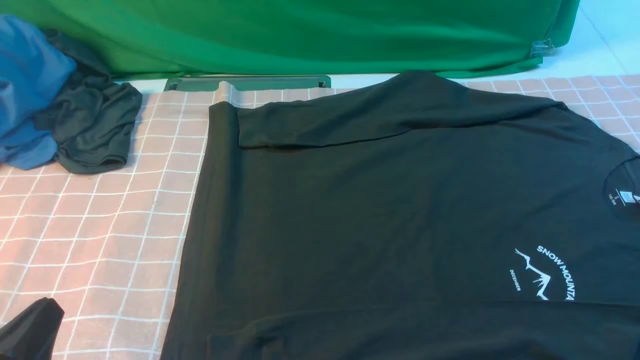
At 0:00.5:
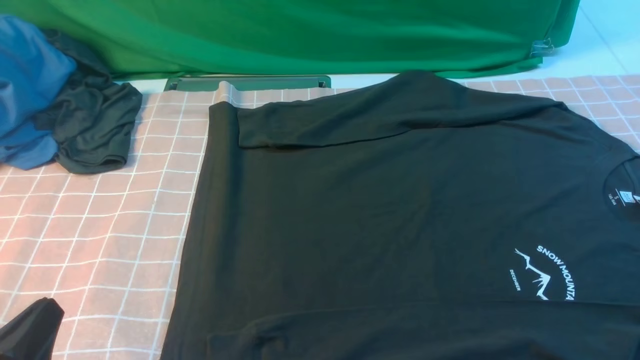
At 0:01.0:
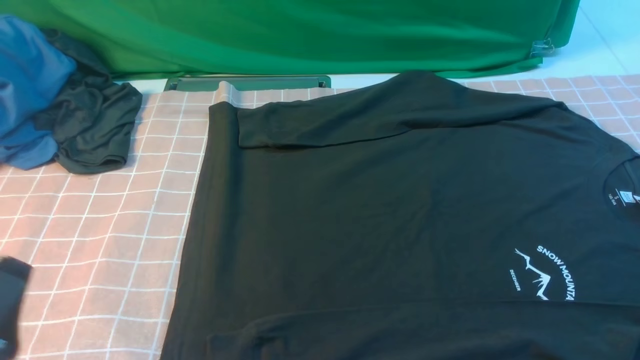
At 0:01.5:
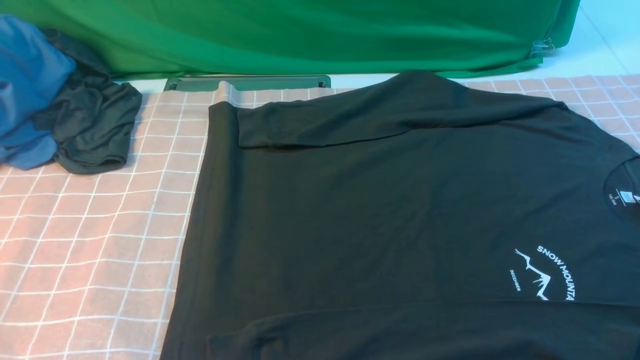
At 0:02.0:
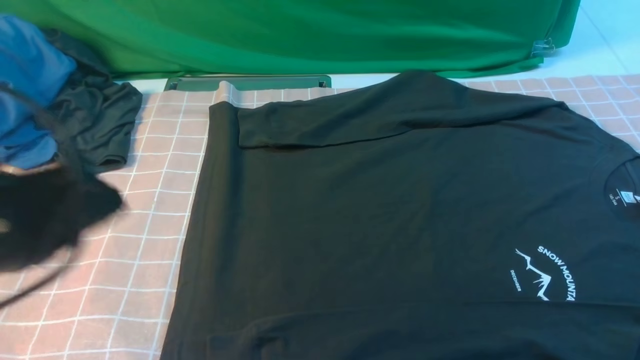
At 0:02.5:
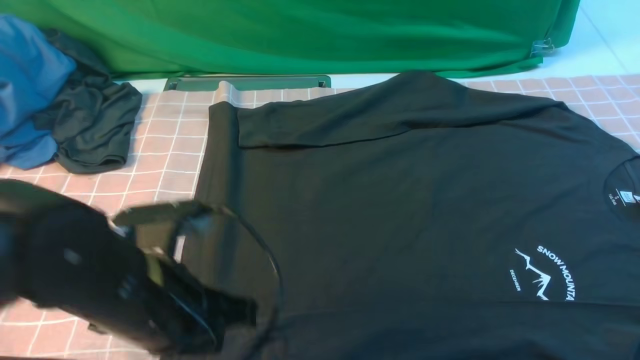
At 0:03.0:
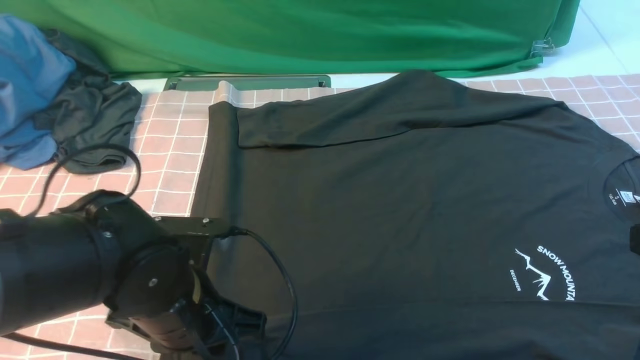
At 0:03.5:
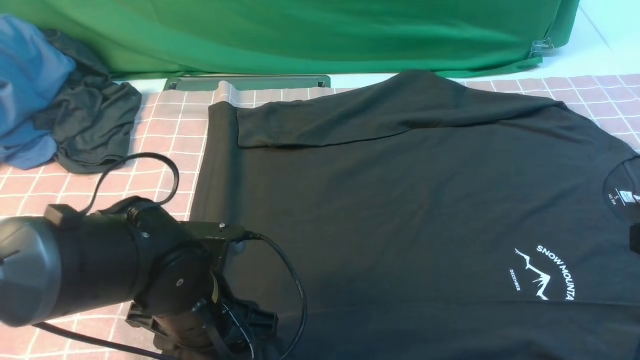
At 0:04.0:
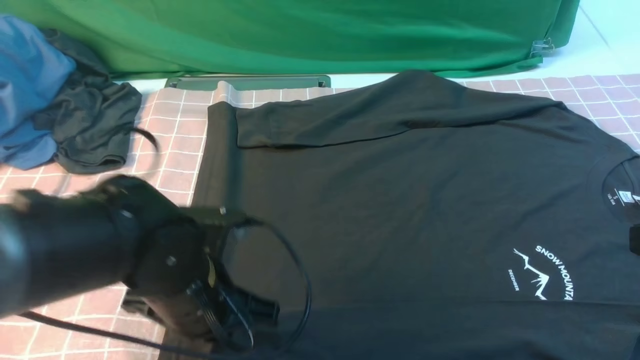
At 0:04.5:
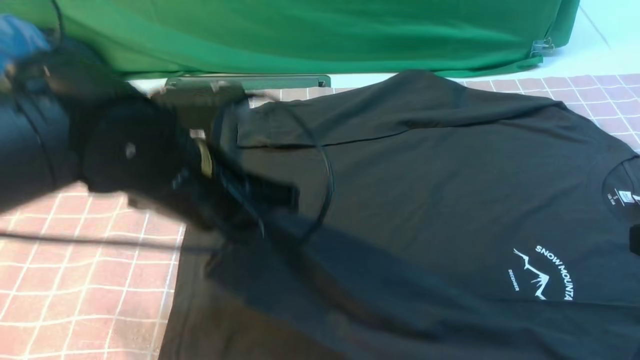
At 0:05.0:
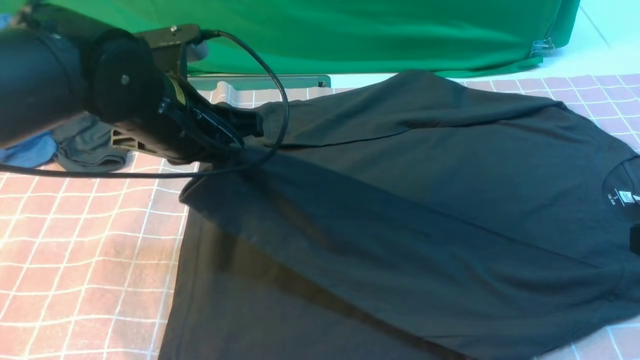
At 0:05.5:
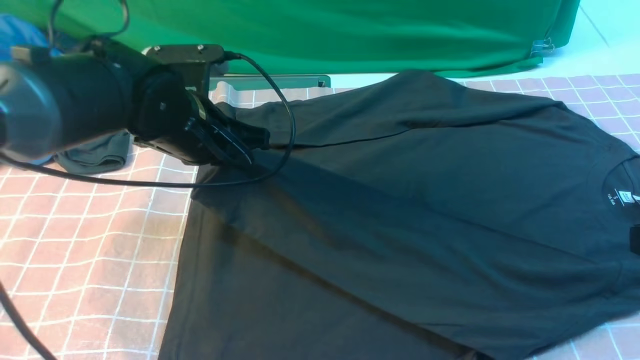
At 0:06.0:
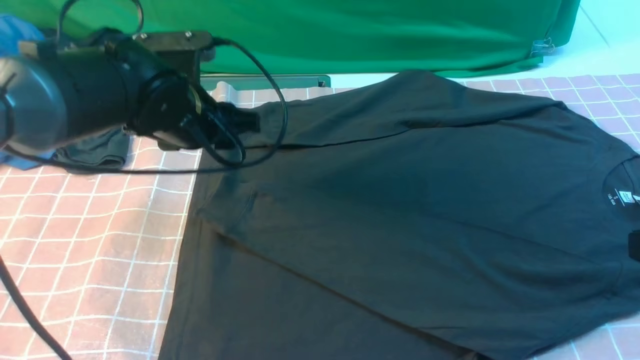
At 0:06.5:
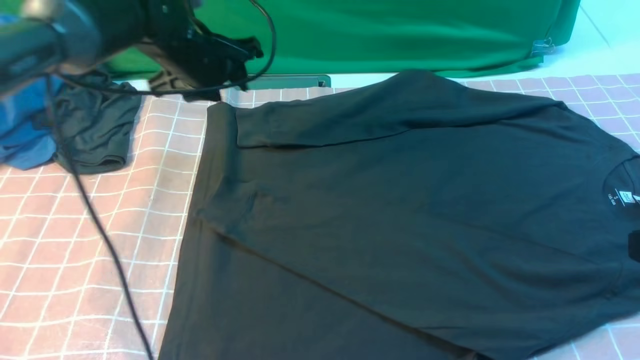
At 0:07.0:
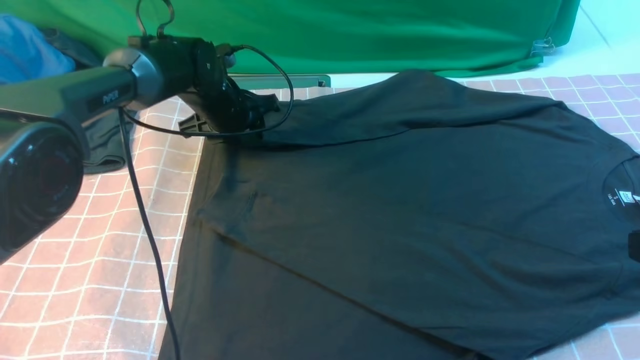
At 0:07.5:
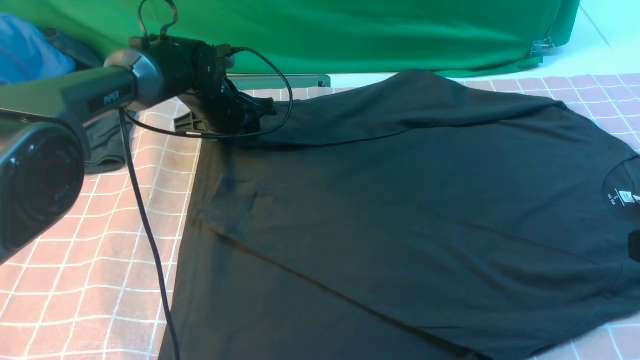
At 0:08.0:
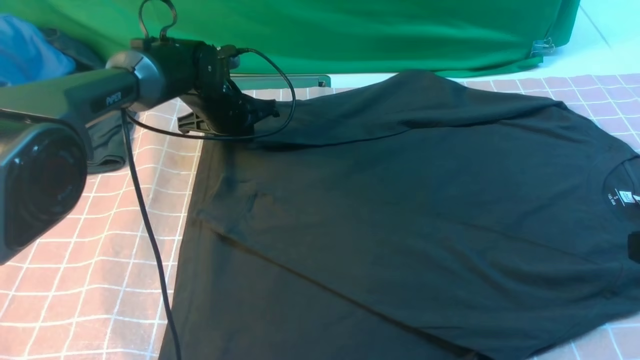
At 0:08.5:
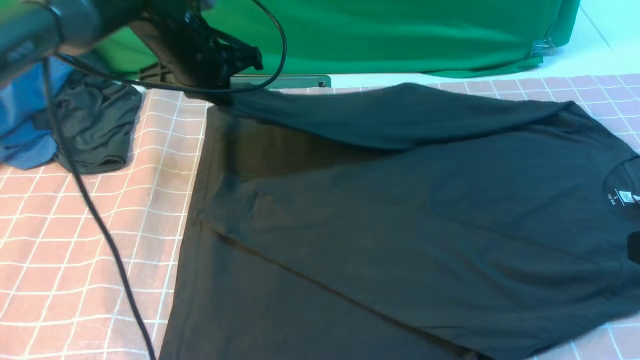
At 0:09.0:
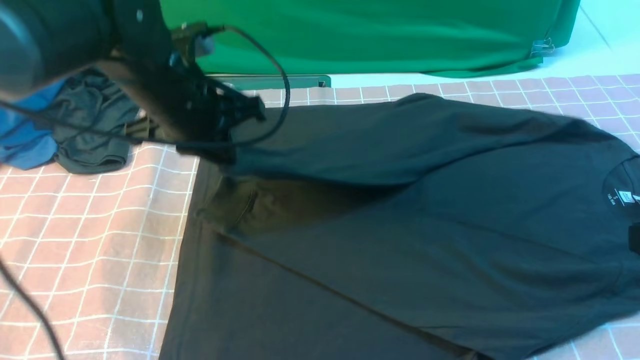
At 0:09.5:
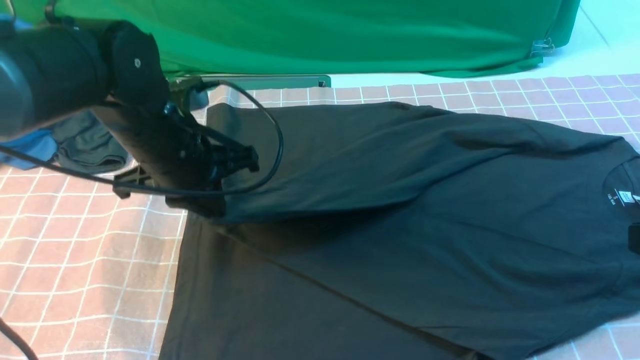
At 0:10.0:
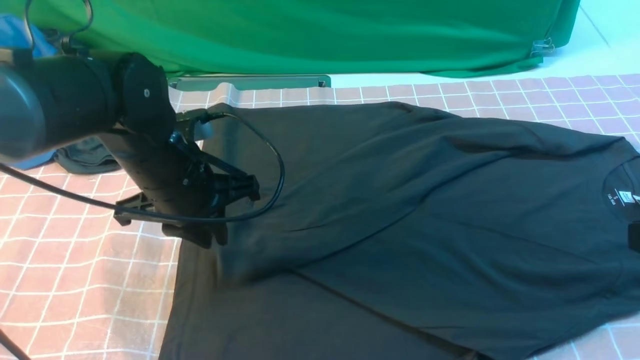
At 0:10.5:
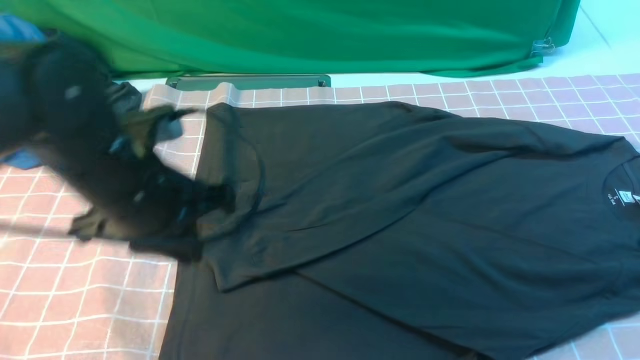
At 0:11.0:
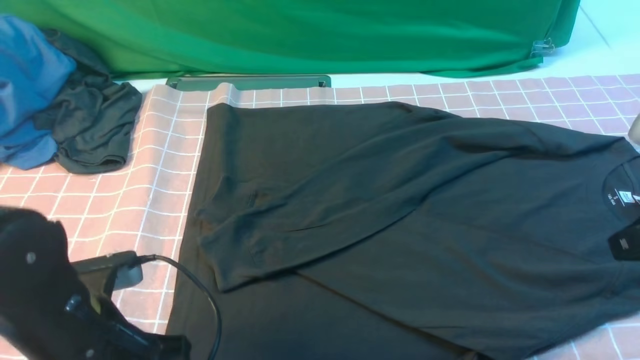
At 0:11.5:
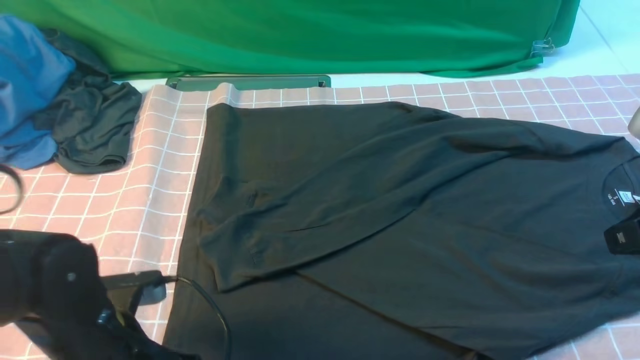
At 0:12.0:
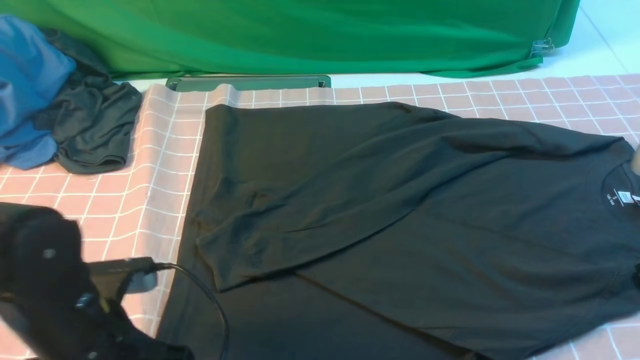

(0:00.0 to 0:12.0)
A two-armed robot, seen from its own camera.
Step, 0:00.0 - 0:03.5: use the left arm to clamp the cuff closest to it.
Step, 0:04.0 - 0:05.5: use the left arm to drag and place the cuff at the centered position on the left edge of the fabric.
Step, 0:06.0 - 0:07.5: use the left arm to clamp the cuff farthest from it.
Step, 0:08.5 - 0:09.5: use the left arm to drag and drop the cuff onto the cuff closest to the left arm.
0:00.0 - 0:02.0: The left gripper goes approximately 15 cm upward and forward.
0:02.0 - 0:04.0: The right gripper travels forward by about 5 cm; the left gripper is displaced downward, to the right and forward by about 15 cm, and opens, then closes once more.
0:04.0 - 0:06.0: The left gripper is displaced forward by about 15 cm, and opens up.
0:06.0 - 0:08.0: The left gripper moves forward and downward, roughly 15 cm, and closes its fingers.
0:08.0 - 0:10.0: The left gripper moves backward, approximately 20 cm.
0:10.0 - 0:12.0: The right gripper shifts approximately 5 cm forward. Meanwhile the left gripper heads backward, covering about 15 cm, and closes its fingers.

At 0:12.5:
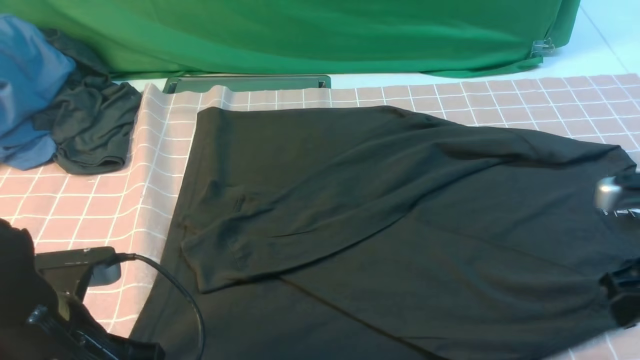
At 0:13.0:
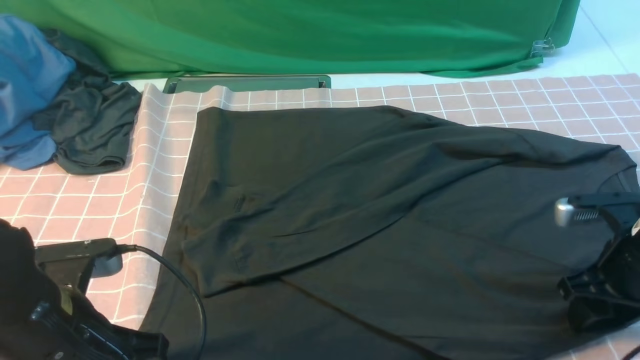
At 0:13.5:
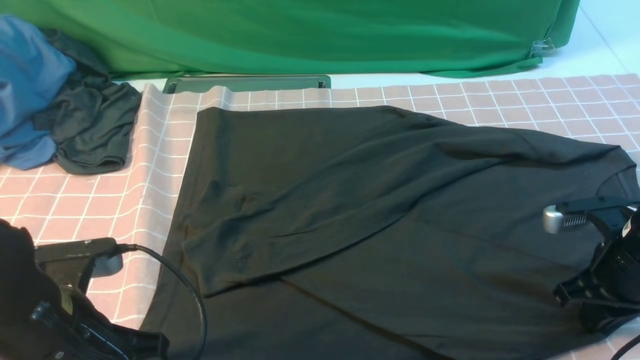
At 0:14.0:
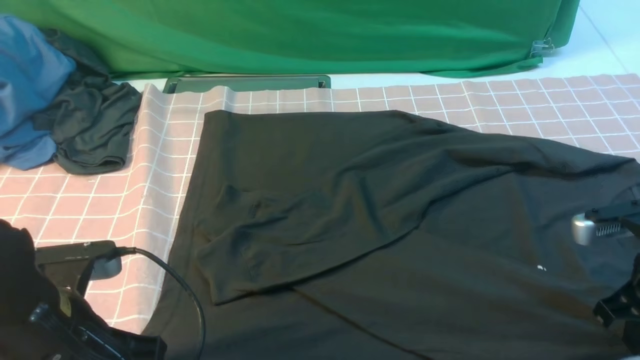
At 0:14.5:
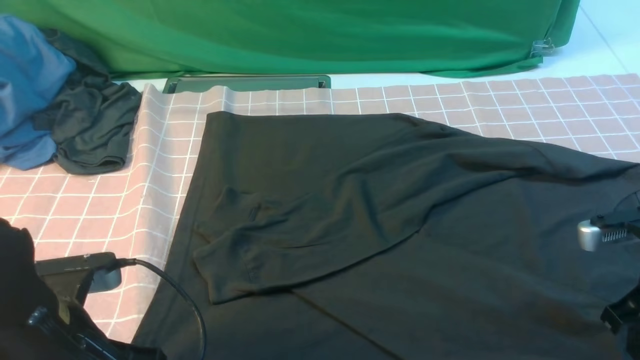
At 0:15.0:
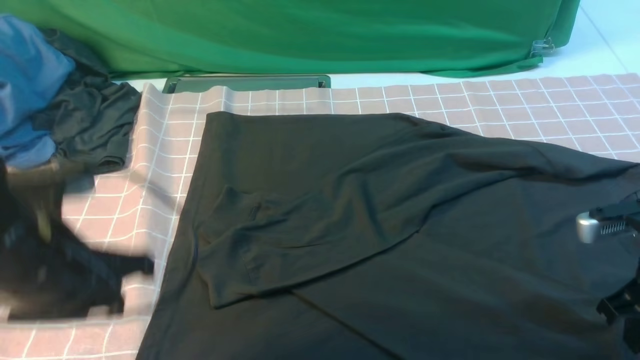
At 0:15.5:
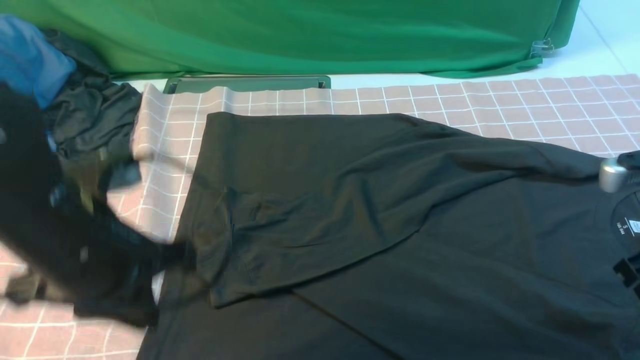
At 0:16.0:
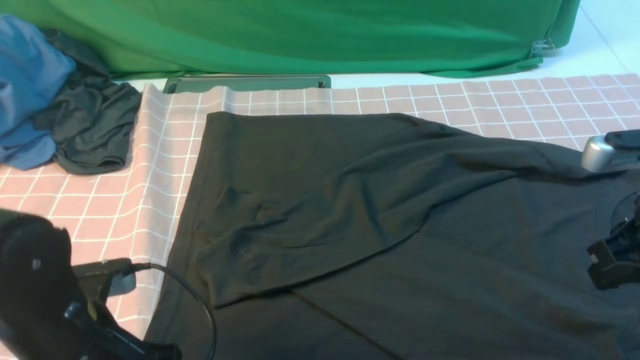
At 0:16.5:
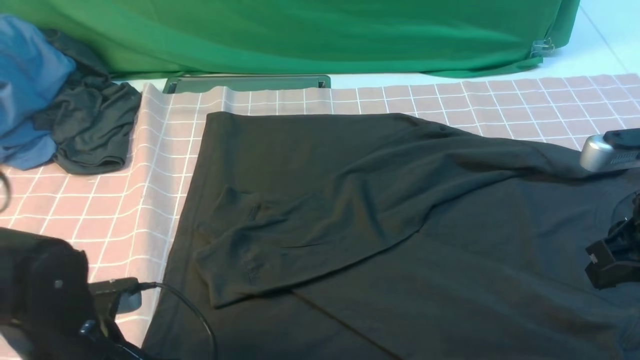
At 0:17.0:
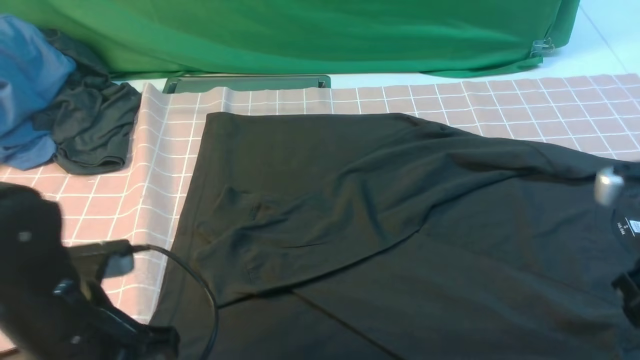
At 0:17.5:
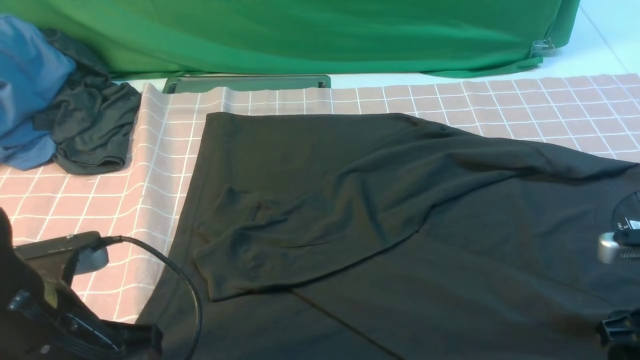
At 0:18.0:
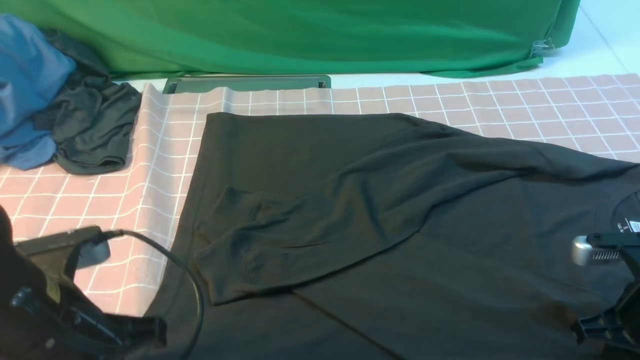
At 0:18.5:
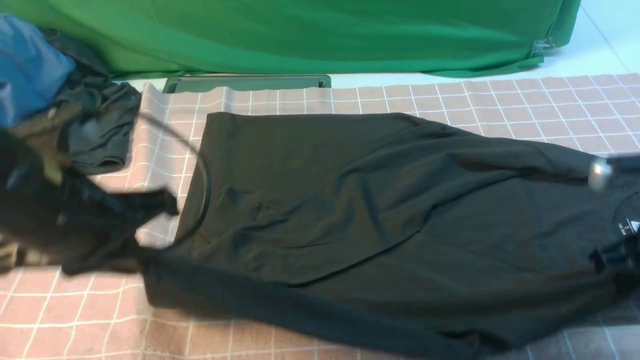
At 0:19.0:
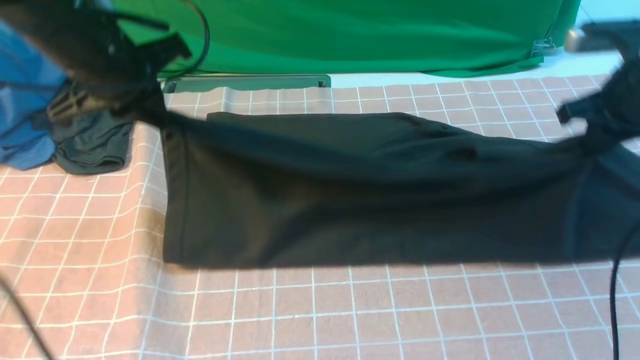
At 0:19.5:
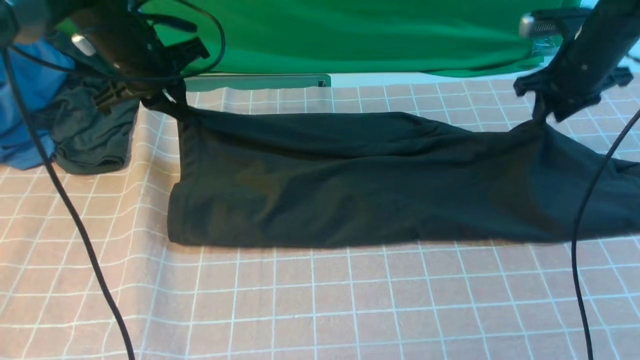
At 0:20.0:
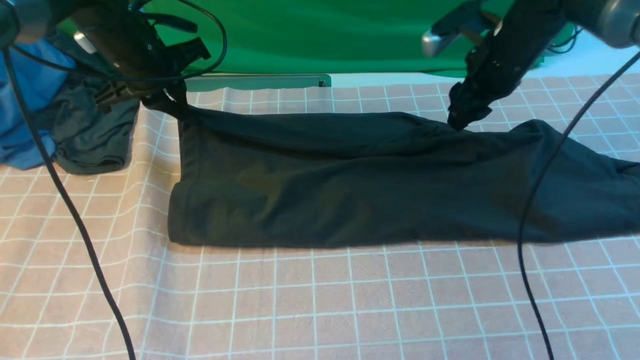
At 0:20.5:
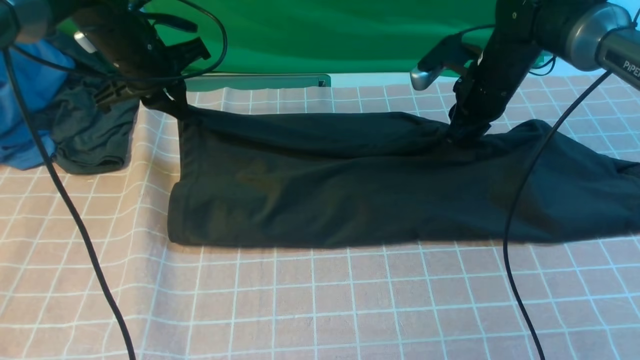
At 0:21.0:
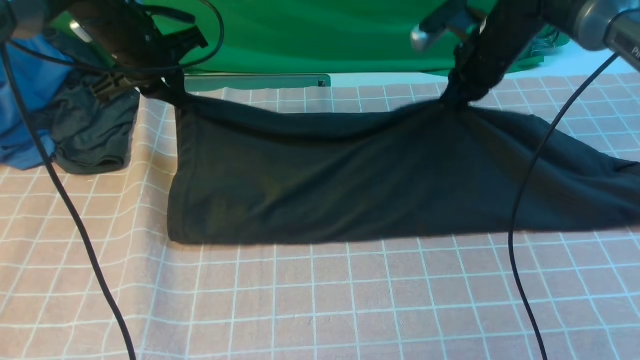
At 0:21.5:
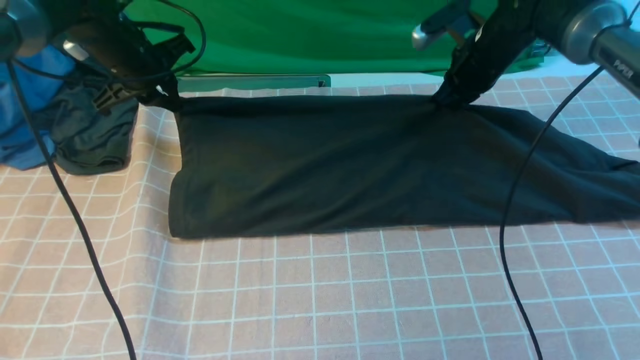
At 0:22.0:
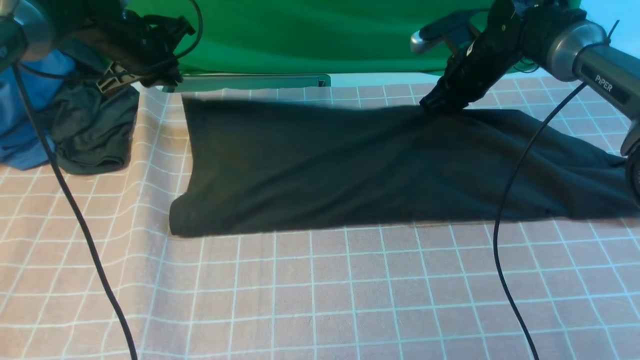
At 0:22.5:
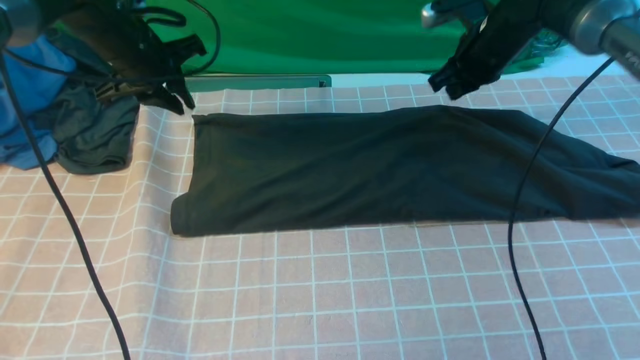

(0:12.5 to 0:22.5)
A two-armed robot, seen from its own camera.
Step, 0:12.5 - 0:18.0: use both arms simultaneously to clamp the lower edge of the clothing fabric.
Step, 0:18.5 - 0:22.0: use both arms to drag the lower edge of the fabric forward and fold it over the upper edge.
0:12.5 - 0:14.5: The right gripper closes, then opens again.
0:14.5 - 0:16.5: The left gripper shifts by about 5 cm, and opens its fingers. The right gripper is displaced upward by approximately 5 cm, and closes up.
0:16.5 - 0:18.5: The right gripper goes downward and returns, about 10 cm each way, and opens, then closes again, while the left gripper shifts some 15 cm upward and forward, and closes its fingers.
0:18.5 - 0:20.5: The right gripper heads forward and to the left, covering roughly 25 cm, and opens, then closes again. Meanwhile the left gripper is displaced forward by roughly 25 cm.
